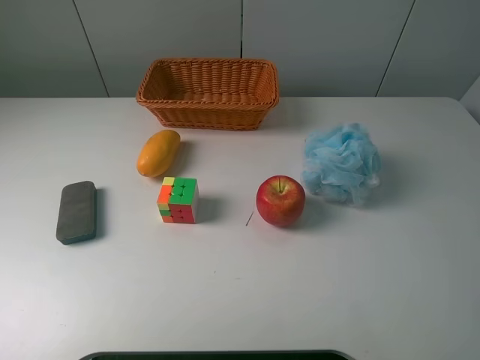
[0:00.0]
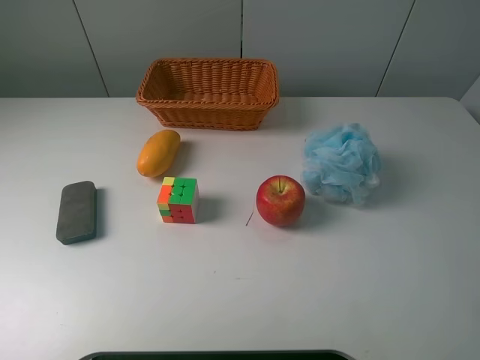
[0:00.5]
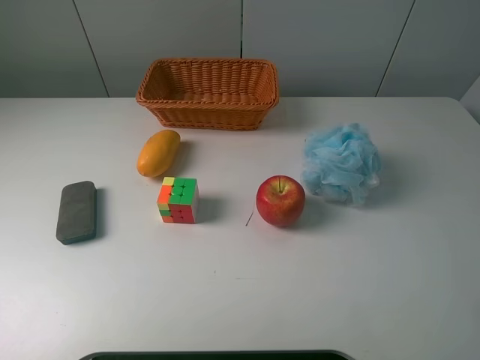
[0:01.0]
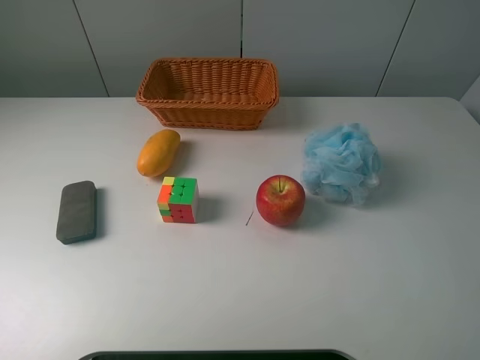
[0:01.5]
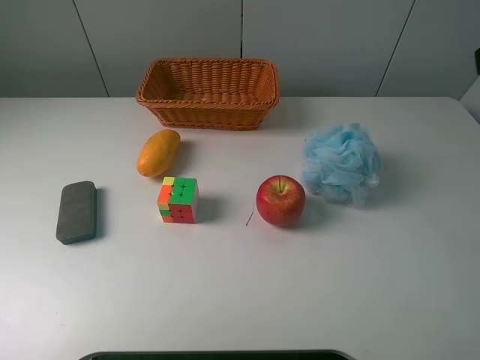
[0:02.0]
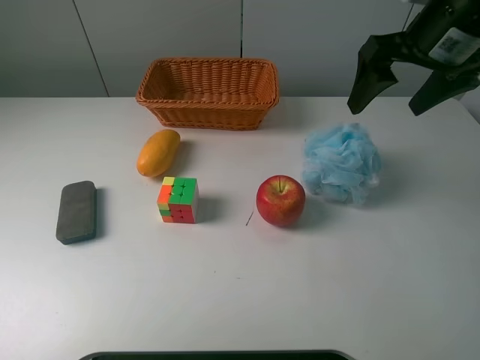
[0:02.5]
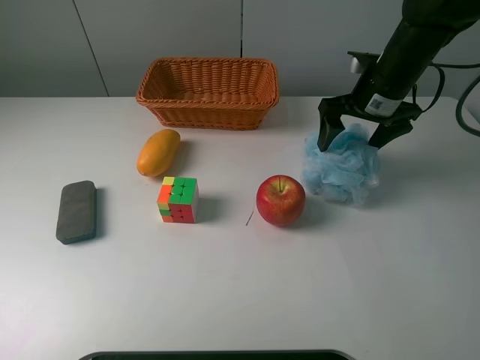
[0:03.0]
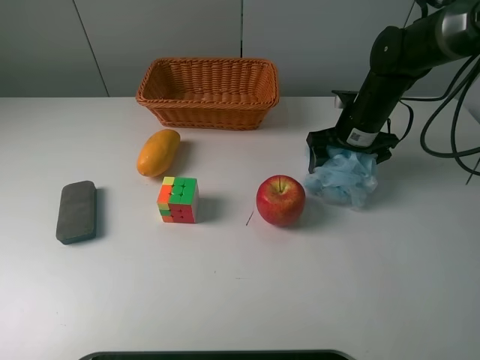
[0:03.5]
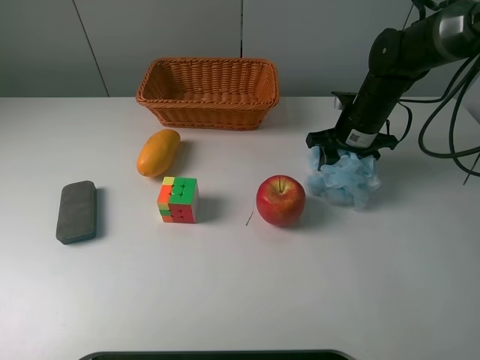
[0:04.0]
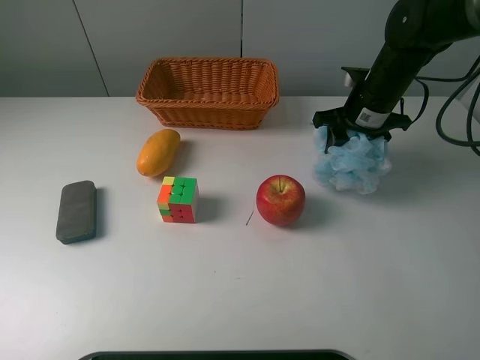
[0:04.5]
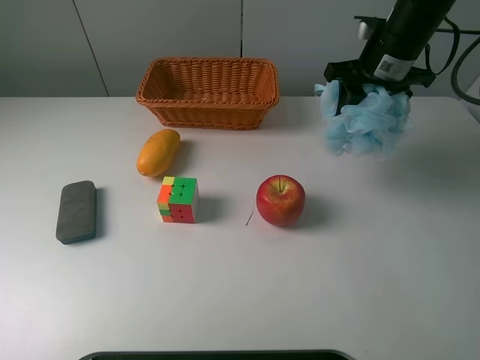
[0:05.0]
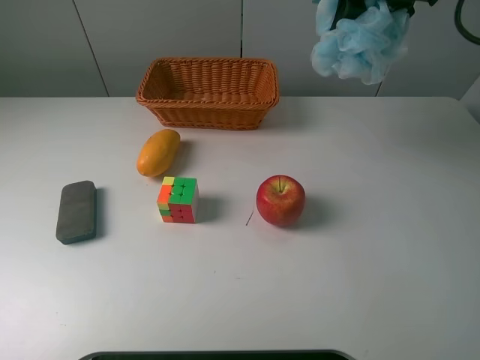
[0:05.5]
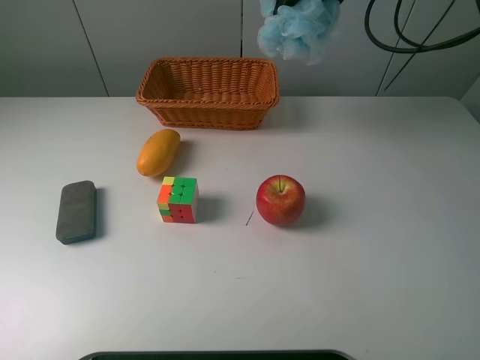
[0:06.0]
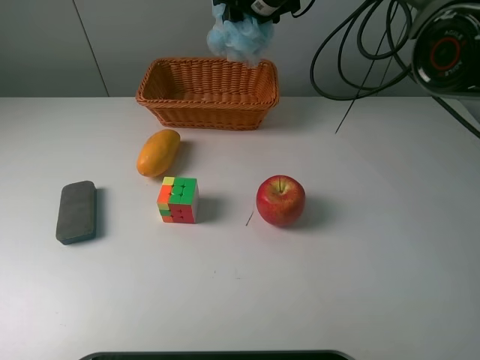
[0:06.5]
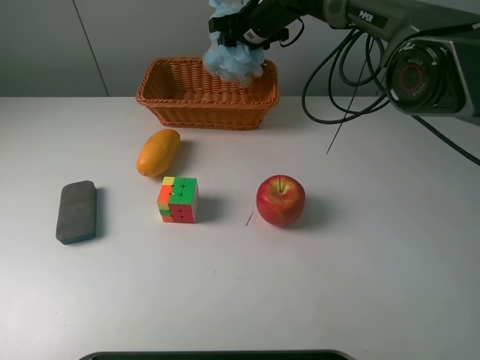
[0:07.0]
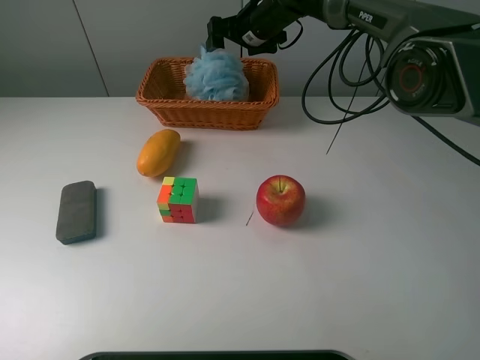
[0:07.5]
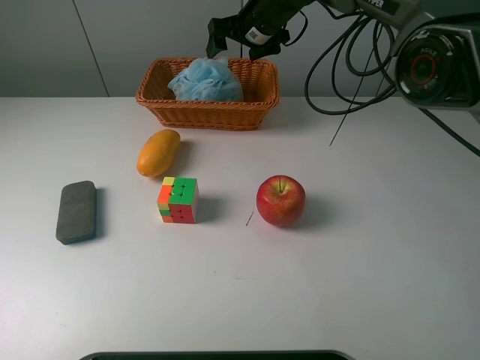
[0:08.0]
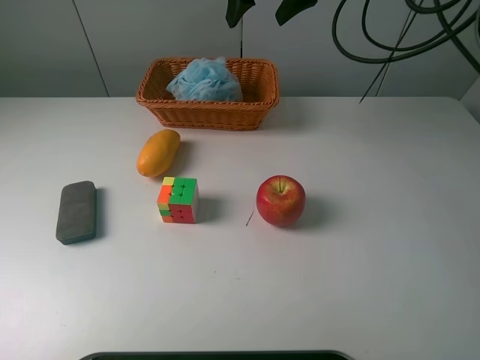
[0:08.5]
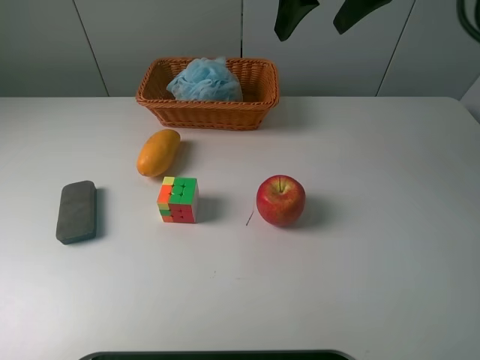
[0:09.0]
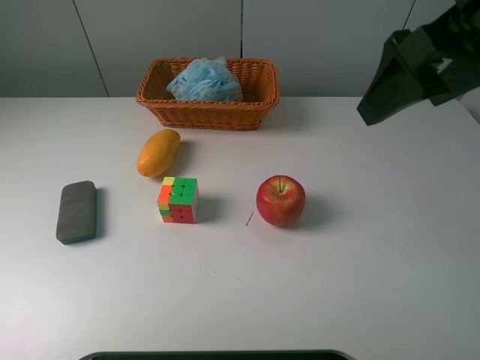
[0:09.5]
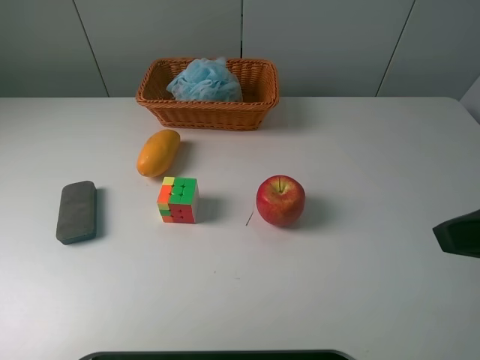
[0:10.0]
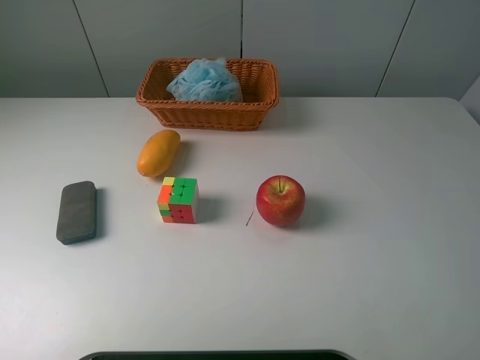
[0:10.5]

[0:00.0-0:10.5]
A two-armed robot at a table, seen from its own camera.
Task of the whole recording: use a picker to grab the item closest to the apple and place it in the basket.
Step, 0:00.0 to 0:04.0: Grasp the shower sphere with the right gripper.
Step, 0:04.5 to 0:08.0: Place the shower sphere into the basket with the right gripper.
0:02.0 to 0:04.0: The right gripper shifts approximately 35 cm downward and forward, and closes.
0:04.0 to 0:06.5: The right gripper shifts roughly 25 cm to the left, forward and upward.
0:06.5 to 0:08.5: The right gripper is displaced upward and backward by approximately 10 cm, and opens its fingers.
0:08.5 to 0:10.5: The right gripper goes approximately 50 cm backward and to the right.
